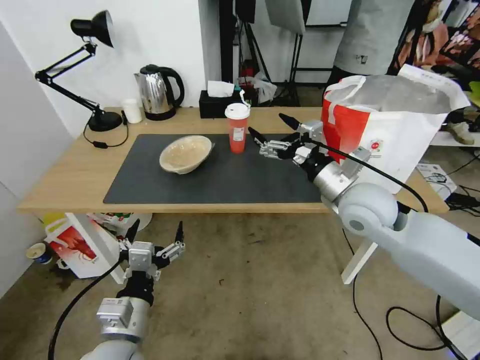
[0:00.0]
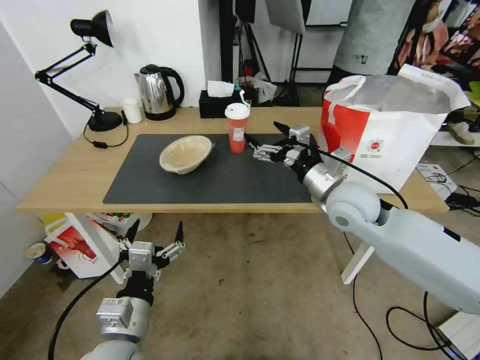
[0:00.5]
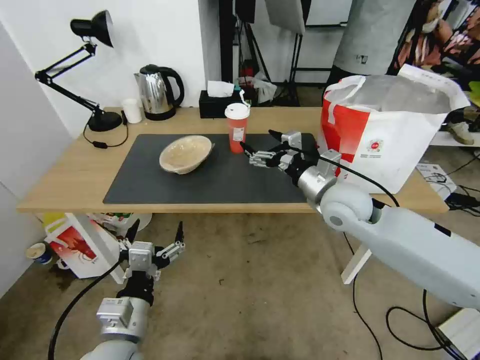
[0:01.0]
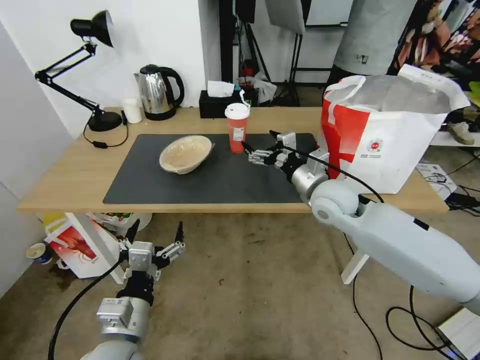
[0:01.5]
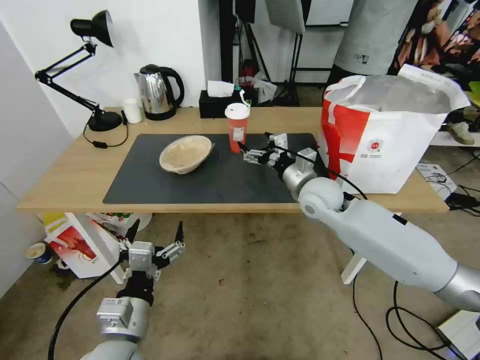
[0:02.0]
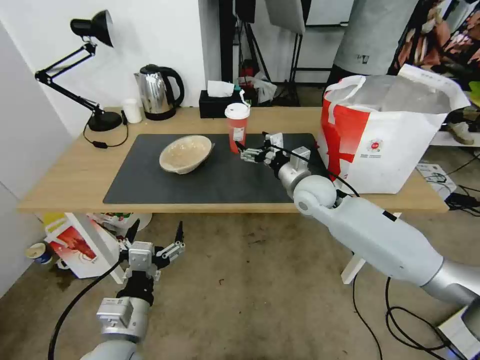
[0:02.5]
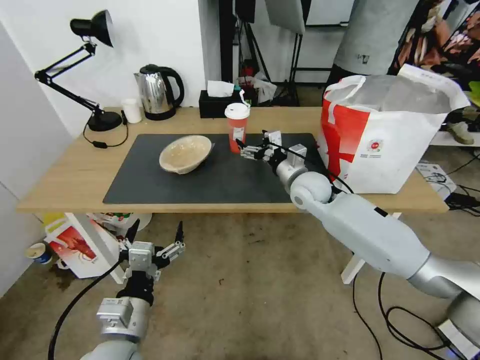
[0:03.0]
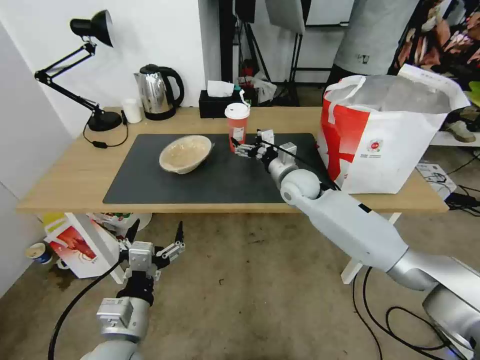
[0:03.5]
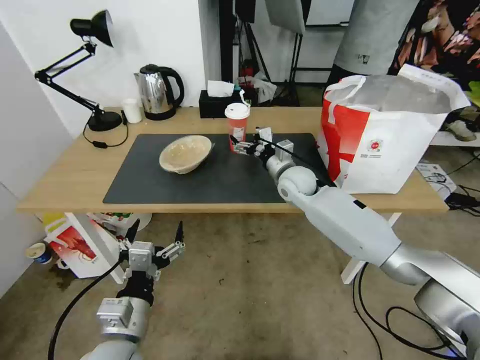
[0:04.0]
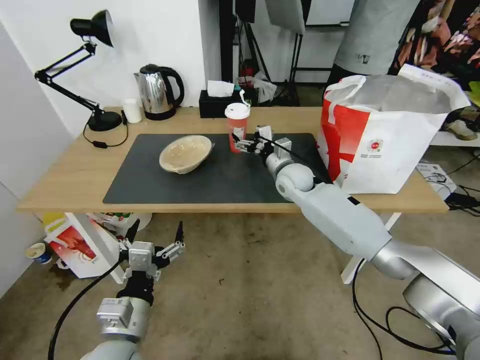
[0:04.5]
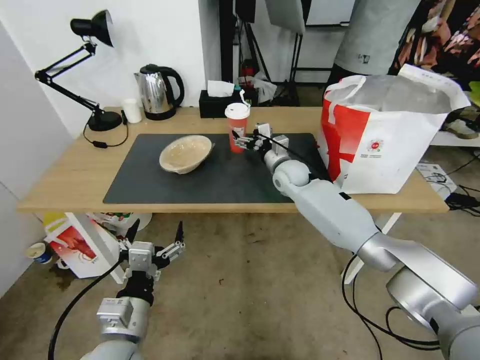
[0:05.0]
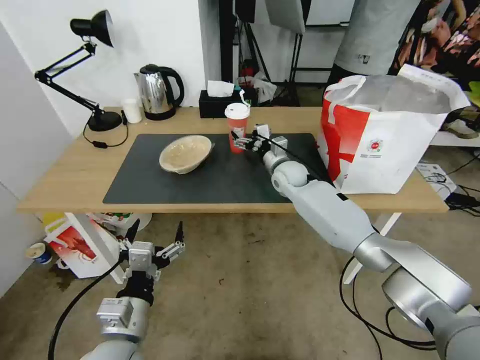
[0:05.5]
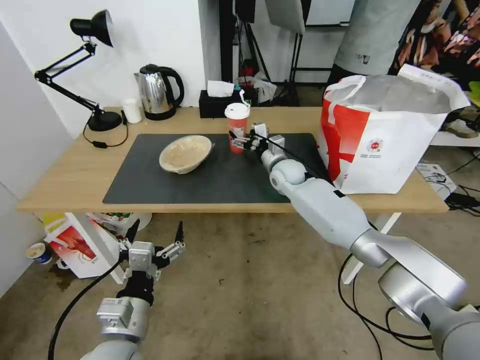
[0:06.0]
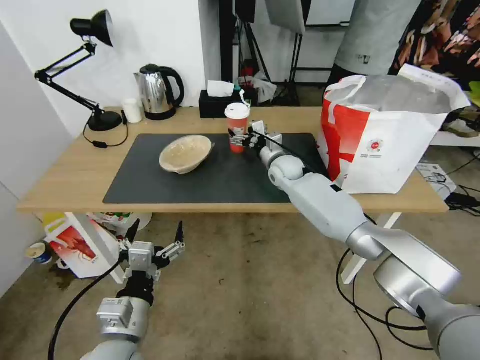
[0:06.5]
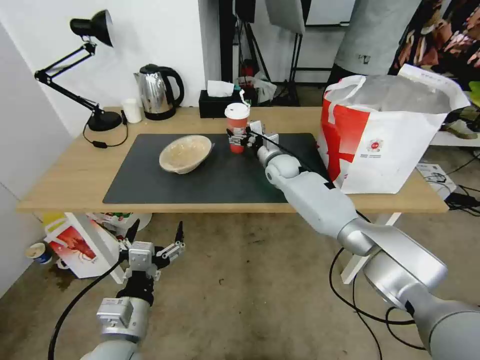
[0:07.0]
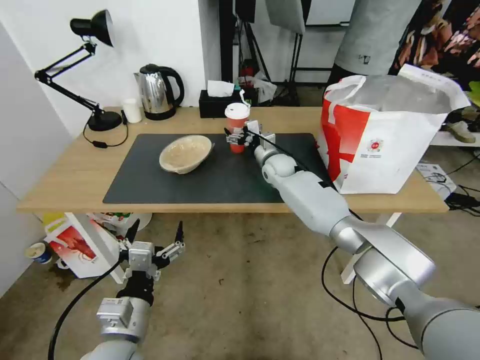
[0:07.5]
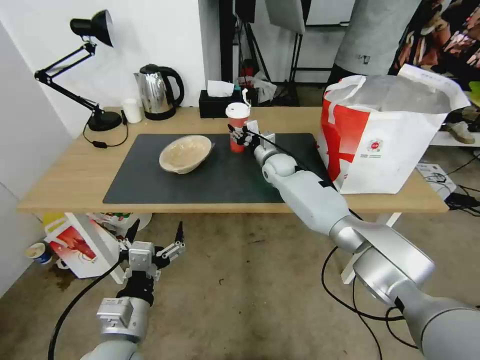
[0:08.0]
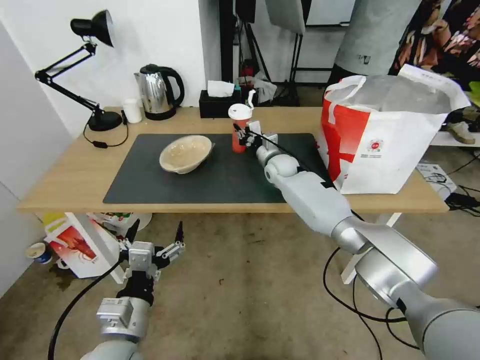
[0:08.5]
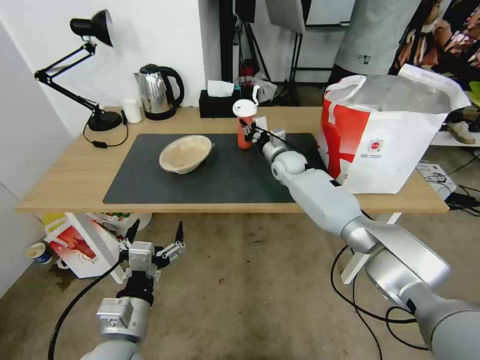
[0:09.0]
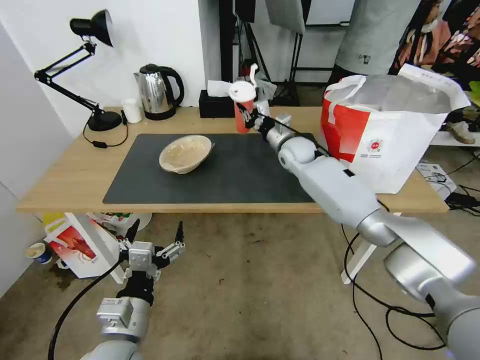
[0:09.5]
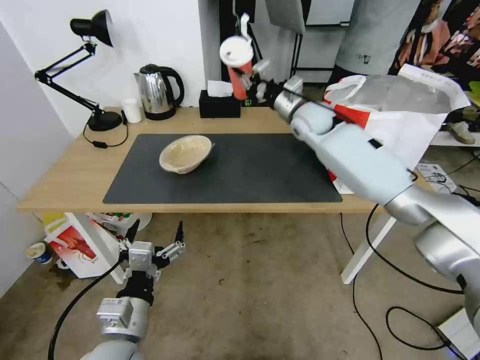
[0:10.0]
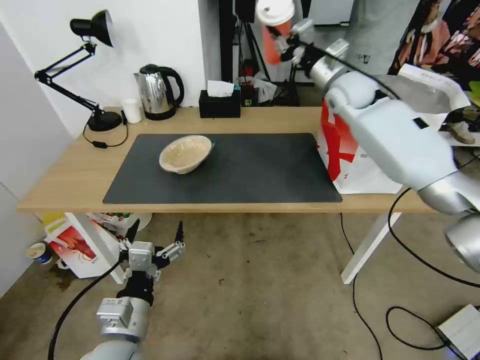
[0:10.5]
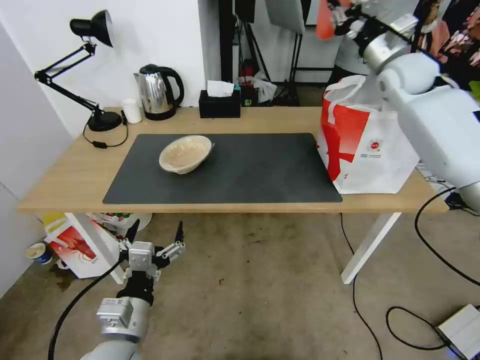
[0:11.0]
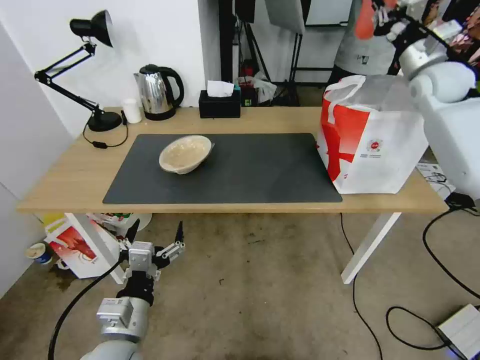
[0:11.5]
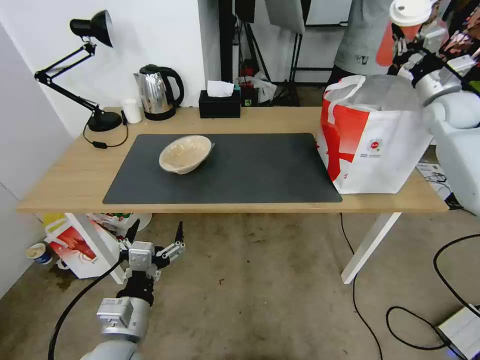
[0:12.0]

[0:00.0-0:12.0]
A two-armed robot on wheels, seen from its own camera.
Task of the whole recording: Pick up the trash from the table and place it into the takeout bag.
0:00.0 to 0:02.0: The right gripper travels forward and downward by approximately 10 cm.
0:02.0 to 0:04.0: The right gripper is displaced forward by some 5 cm.
0:04.0 to 0:06.0: The right gripper goes about 5 cm forward.
0:06.0 to 0:08.0: The right gripper closes its fingers.
0:08.0 to 0:10.0: The right gripper shifts roughly 20 cm upward, and closes up.
0:10.0 to 0:12.0: The right gripper travels to the right by approximately 30 cm.

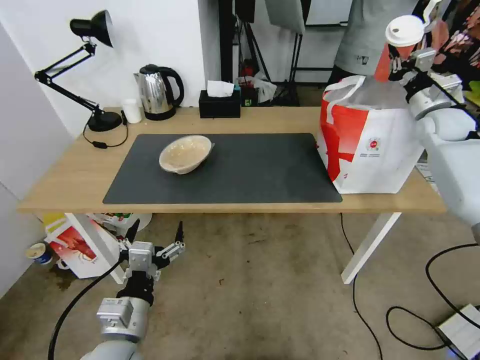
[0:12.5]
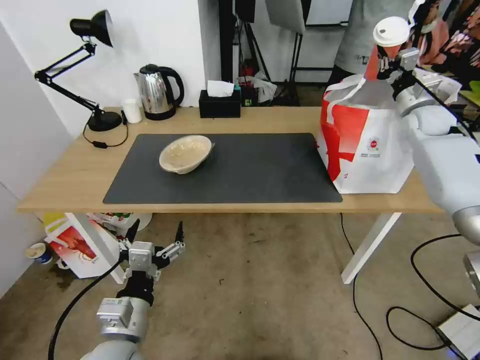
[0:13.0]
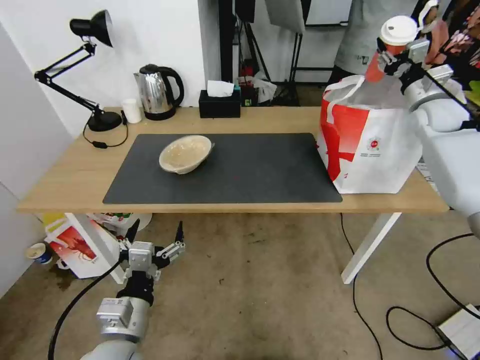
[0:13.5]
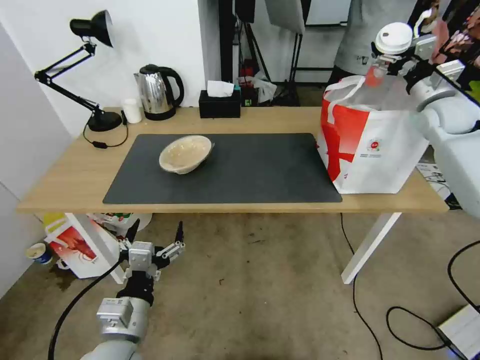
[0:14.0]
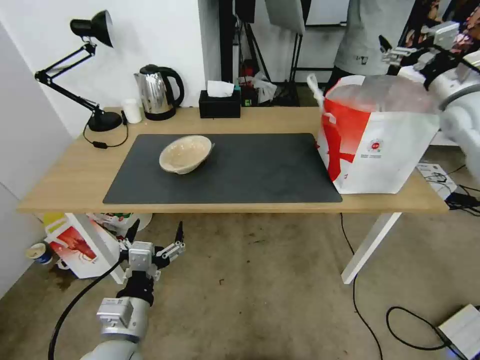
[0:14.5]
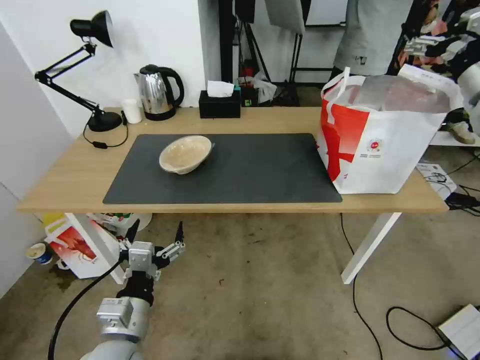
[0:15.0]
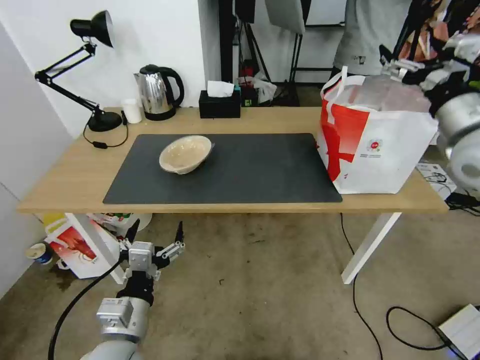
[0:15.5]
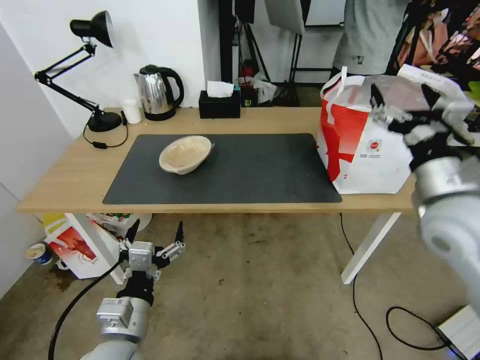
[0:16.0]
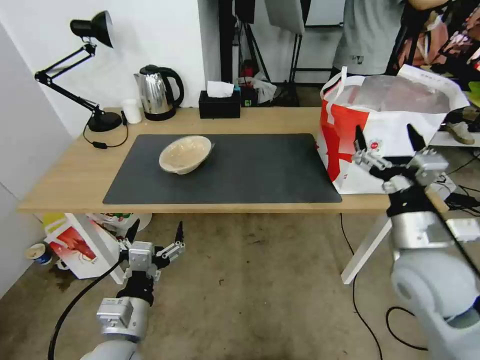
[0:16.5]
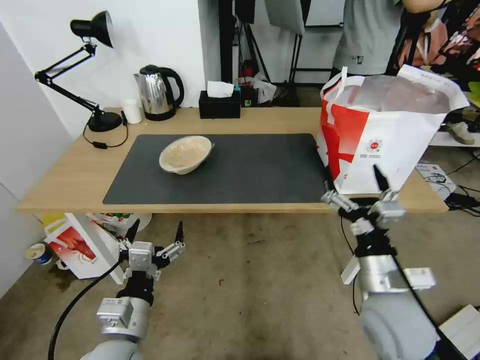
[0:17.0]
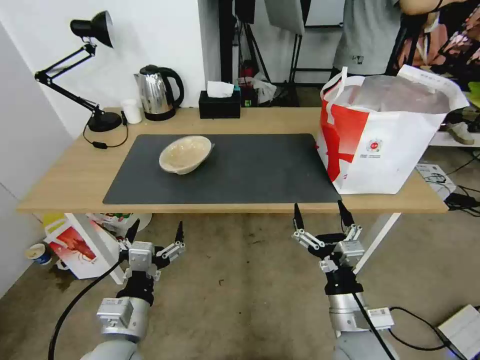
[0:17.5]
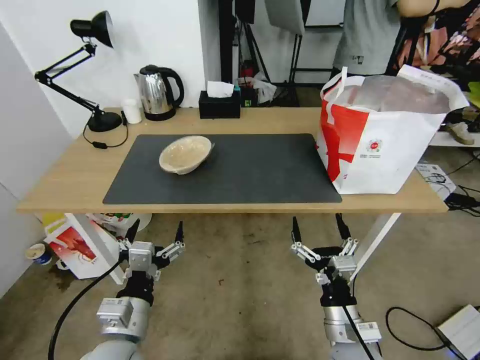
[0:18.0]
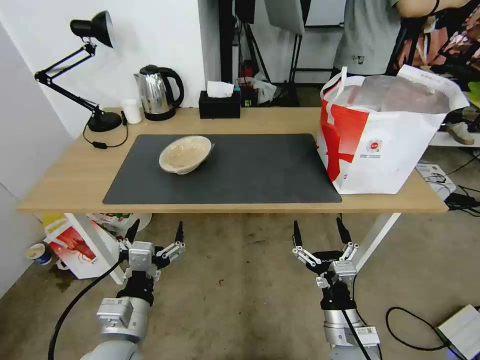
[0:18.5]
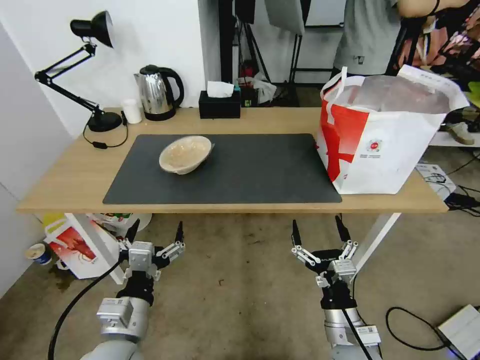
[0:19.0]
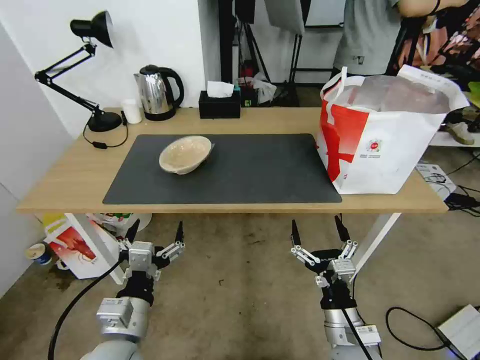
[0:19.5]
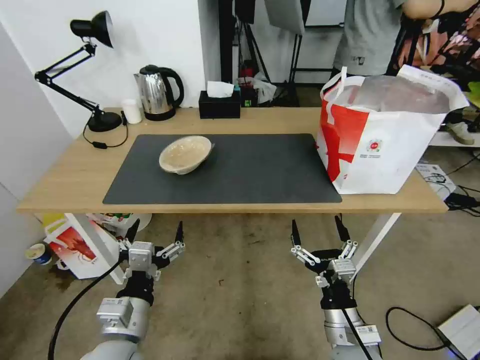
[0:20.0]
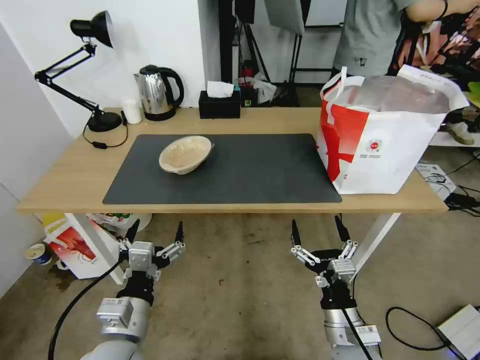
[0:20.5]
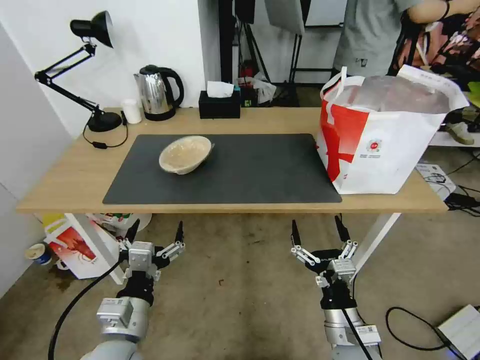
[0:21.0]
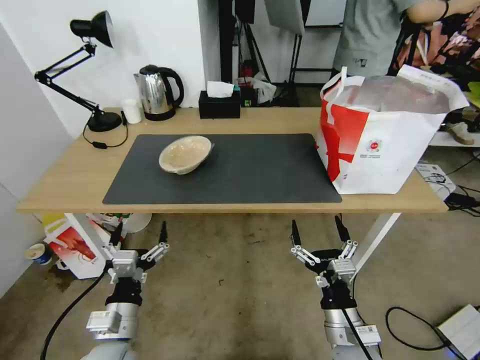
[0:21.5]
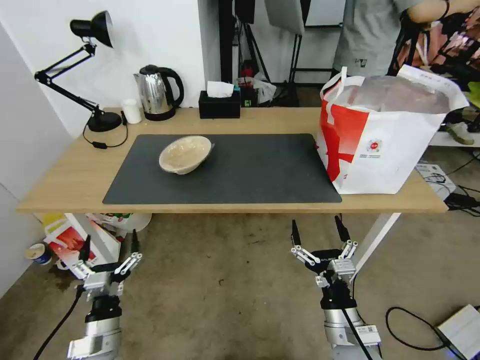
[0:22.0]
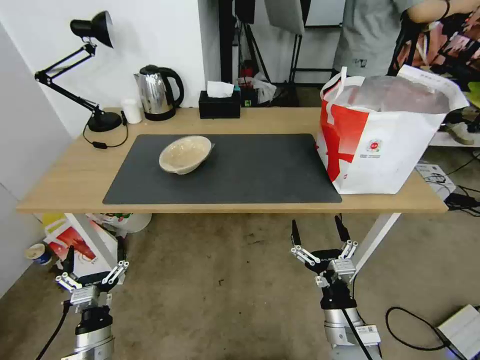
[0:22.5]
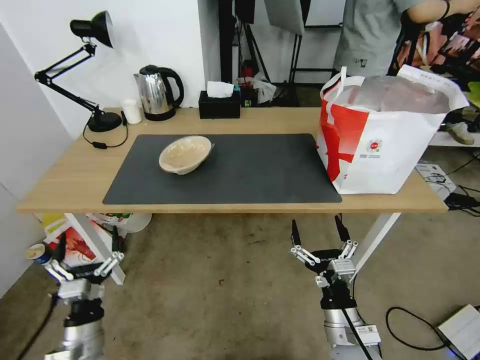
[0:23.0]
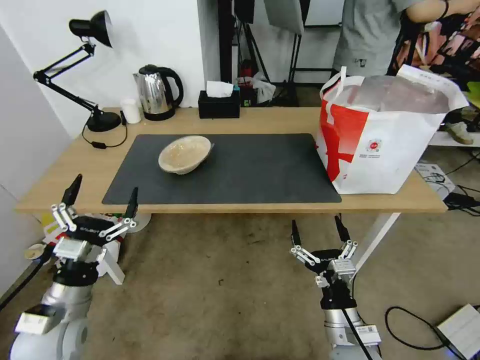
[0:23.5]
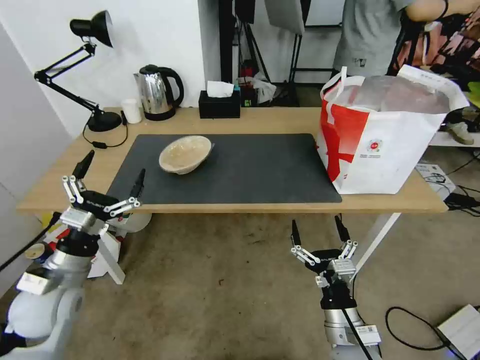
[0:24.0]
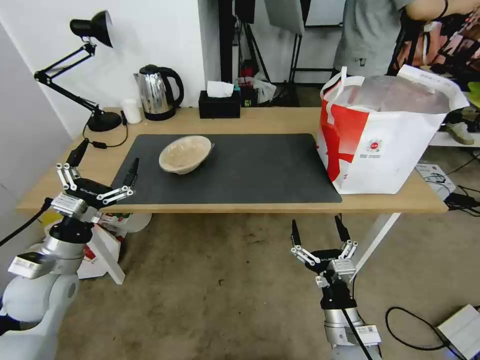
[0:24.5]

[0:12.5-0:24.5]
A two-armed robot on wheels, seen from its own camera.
Task of the whole recording: Pick up the trash from the table and place it into the takeout bag.
0:12.5 to 0:14.5: The right gripper travels upward and backward by roughly 10 cm, and opens up.
0:14.5 to 0:16.5: The right gripper goes some 35 cm backward, to the left and downward.
0:16.5 to 0:18.5: The right gripper goes approximately 25 cm downward, backward and to the left.
0:18.5 to 0:20.5: The two grippers keep their place.
0:20.5 to 0:22.5: The left gripper shifts approximately 20 cm downward and to the left.
0:22.5 to 0:24.5: The left gripper goes some 20 cm upward and forward.

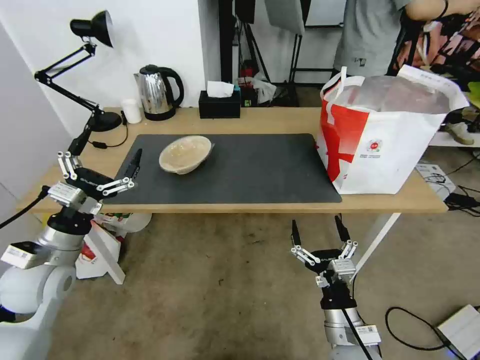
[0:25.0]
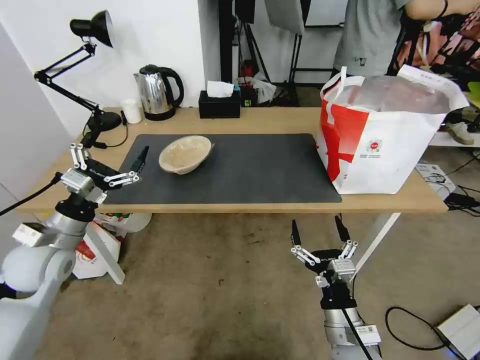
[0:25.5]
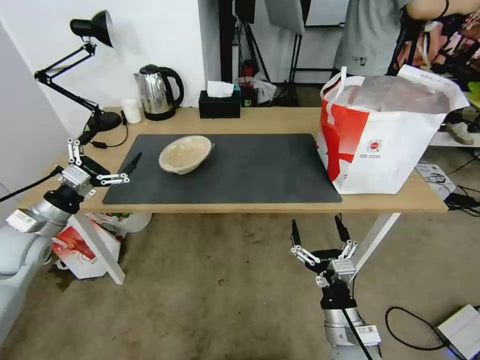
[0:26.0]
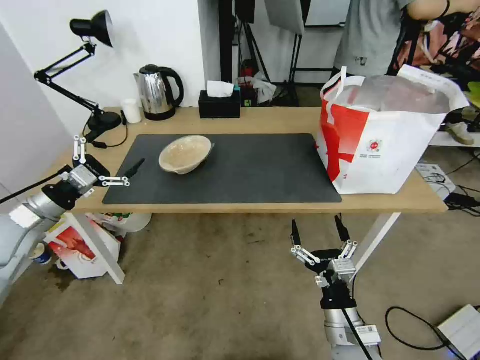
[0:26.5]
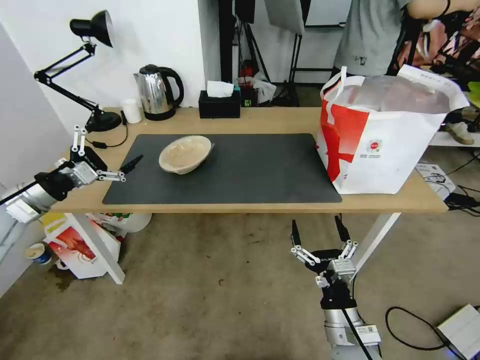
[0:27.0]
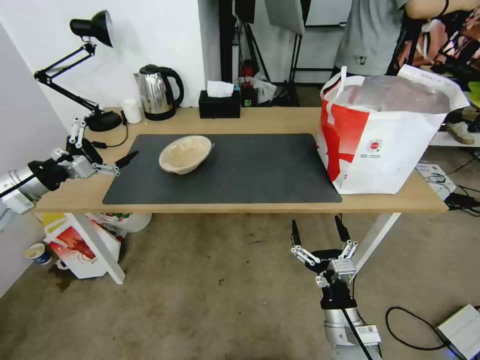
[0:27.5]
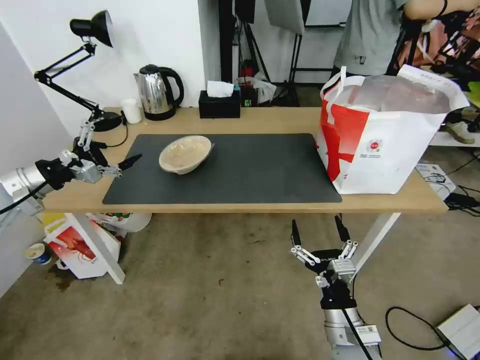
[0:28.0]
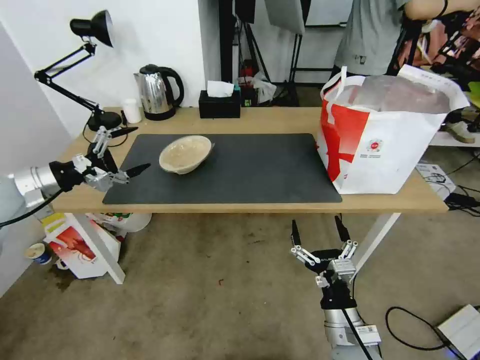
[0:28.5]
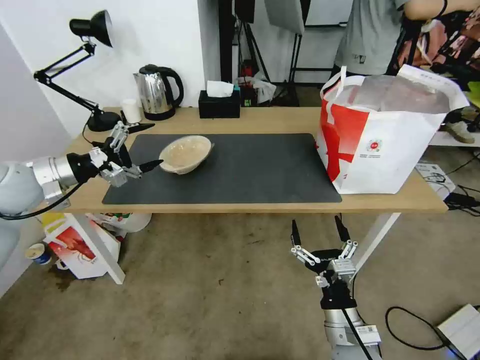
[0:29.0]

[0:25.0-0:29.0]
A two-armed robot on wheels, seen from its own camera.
Task of the whole recording: Pick up the trash from the table and place it into the takeout bag.
0:25.0 to 0:27.0: The left gripper is displaced to the left, forward and upward by roughly 15 cm.
0:27.0 to 0:29.0: The left gripper travels forward by some 5 cm.
